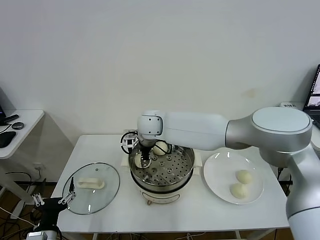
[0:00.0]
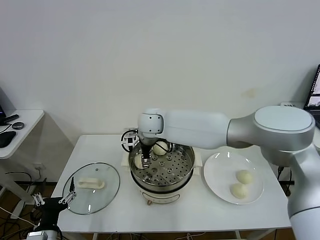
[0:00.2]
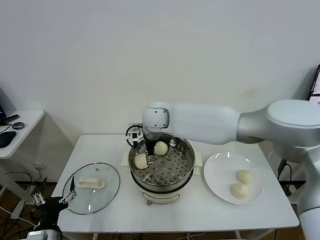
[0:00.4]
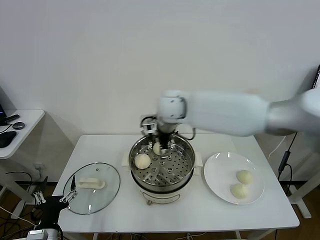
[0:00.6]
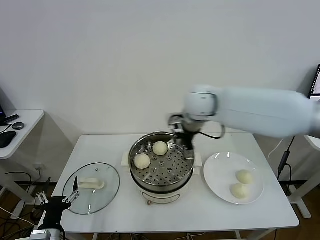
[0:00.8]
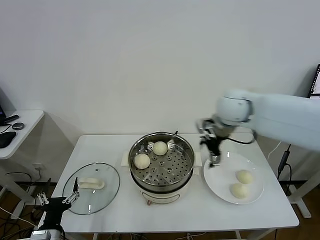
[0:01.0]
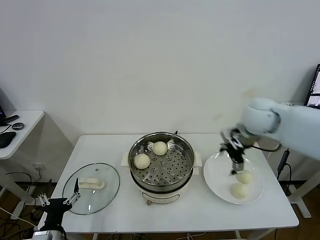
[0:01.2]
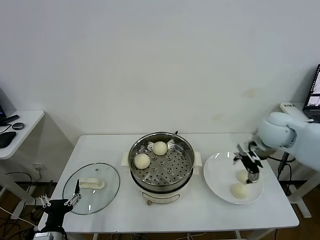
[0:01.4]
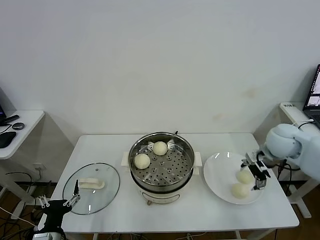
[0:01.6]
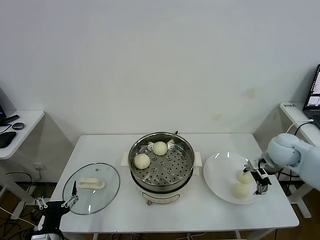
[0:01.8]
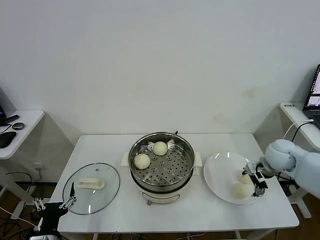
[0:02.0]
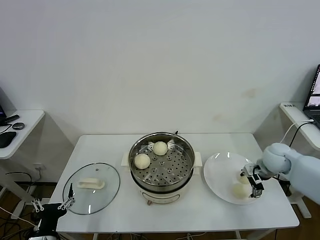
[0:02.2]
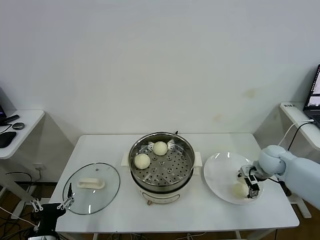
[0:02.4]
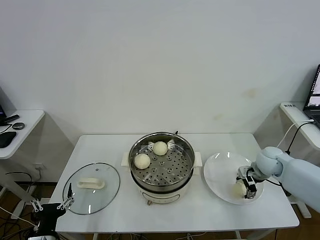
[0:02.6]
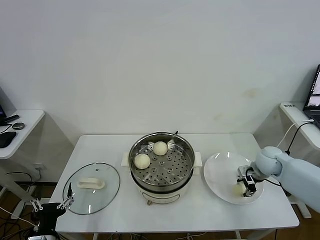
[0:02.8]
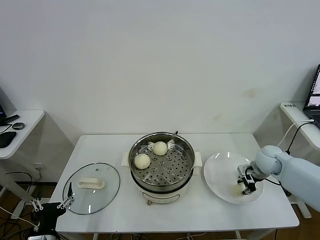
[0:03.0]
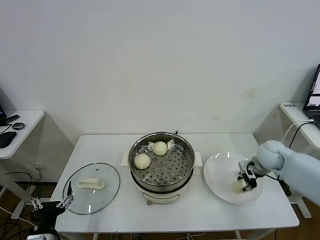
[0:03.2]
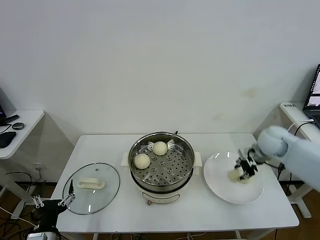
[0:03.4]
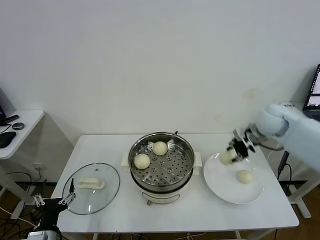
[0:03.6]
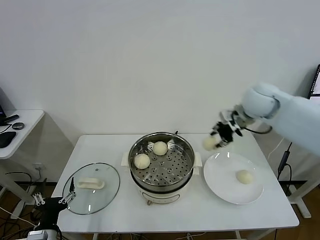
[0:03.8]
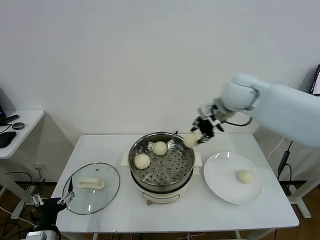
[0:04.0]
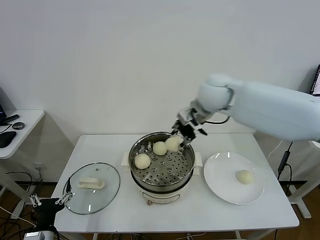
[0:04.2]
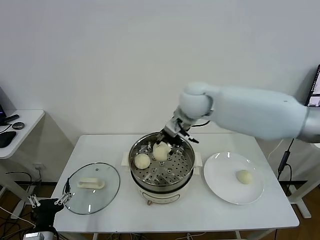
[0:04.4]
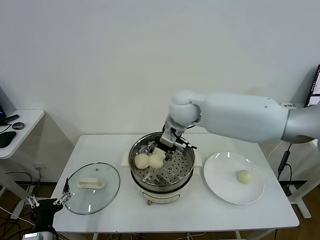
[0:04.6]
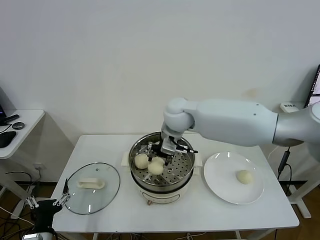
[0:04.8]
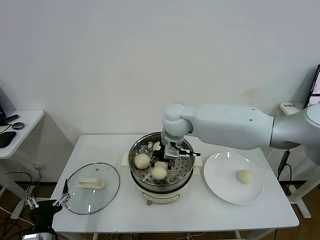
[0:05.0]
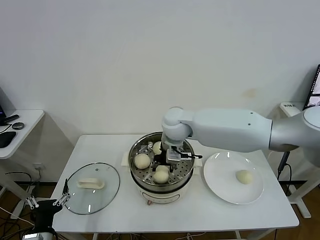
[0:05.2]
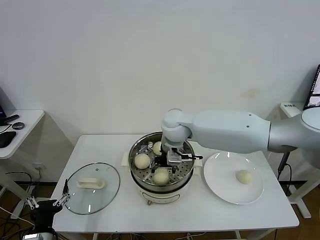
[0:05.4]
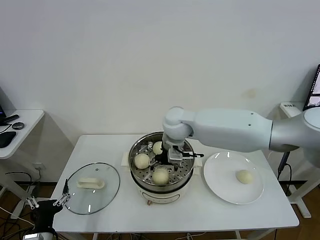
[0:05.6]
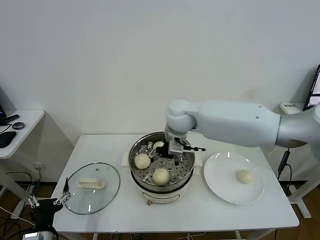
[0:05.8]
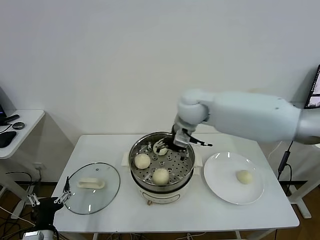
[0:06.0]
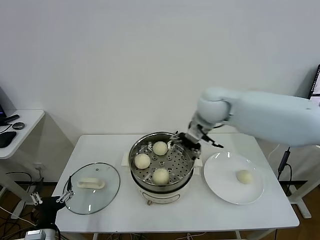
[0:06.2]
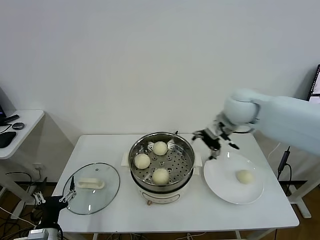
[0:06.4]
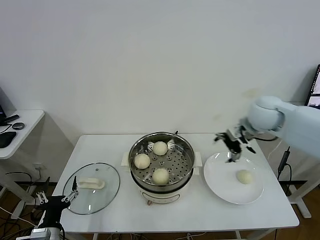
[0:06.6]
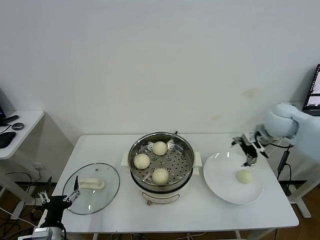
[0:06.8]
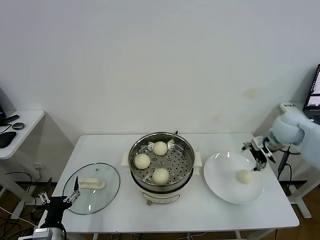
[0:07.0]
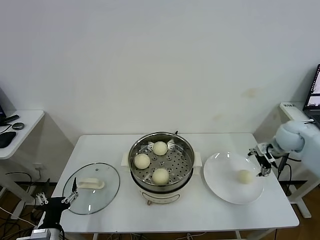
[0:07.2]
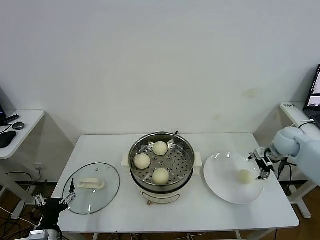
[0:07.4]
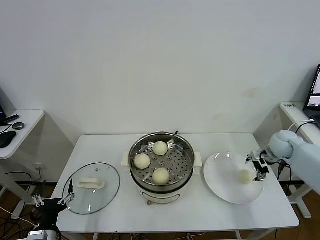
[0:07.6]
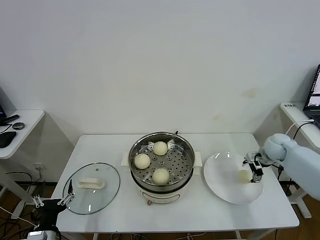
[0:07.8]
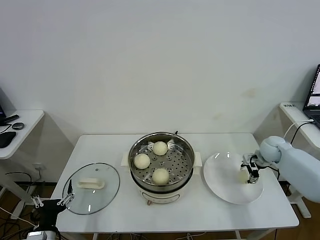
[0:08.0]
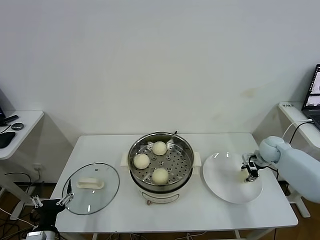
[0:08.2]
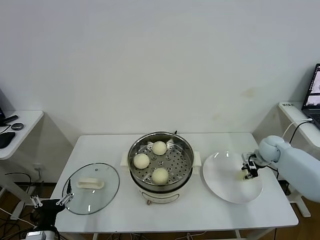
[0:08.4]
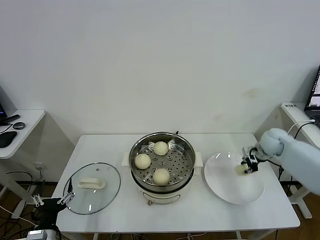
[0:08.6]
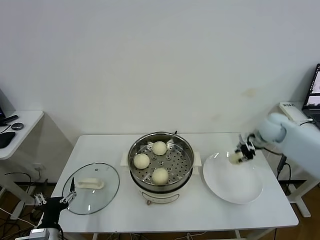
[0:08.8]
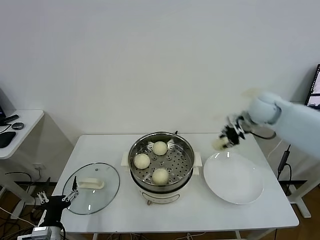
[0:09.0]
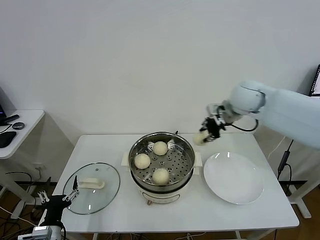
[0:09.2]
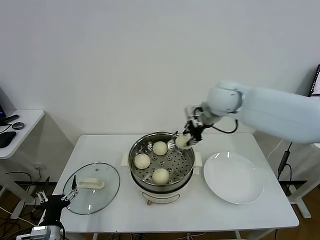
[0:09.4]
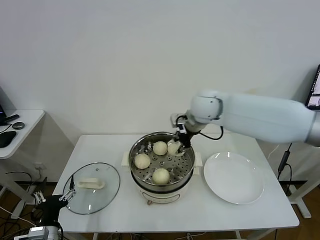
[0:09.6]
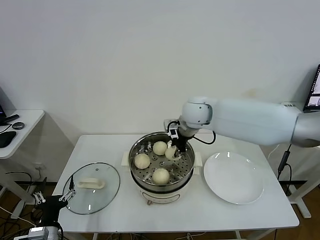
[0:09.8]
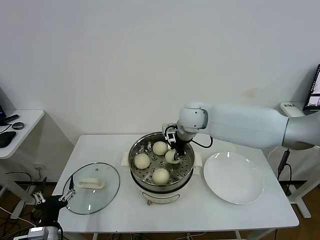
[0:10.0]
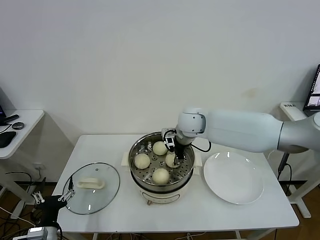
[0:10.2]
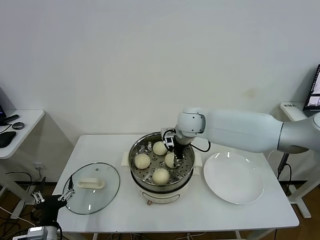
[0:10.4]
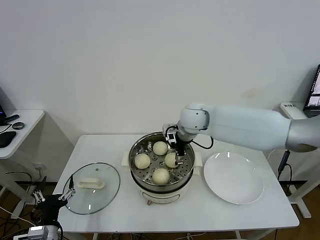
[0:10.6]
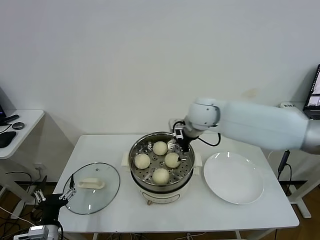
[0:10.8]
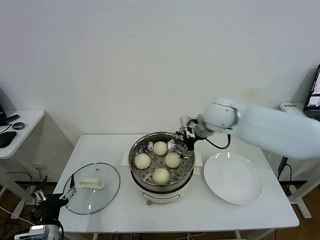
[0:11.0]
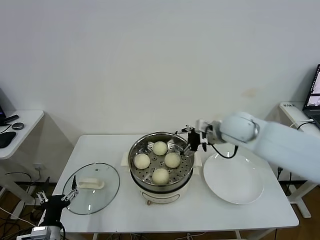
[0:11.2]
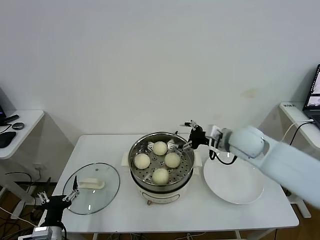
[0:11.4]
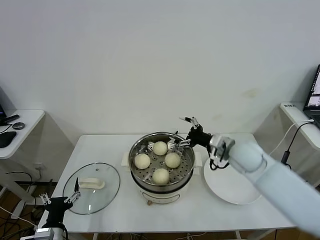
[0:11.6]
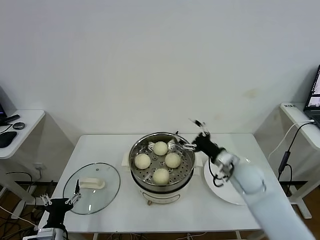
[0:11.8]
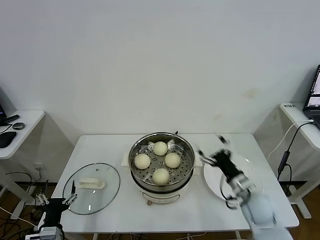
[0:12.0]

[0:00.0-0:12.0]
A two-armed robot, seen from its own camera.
Task of the whole recording: take steamed baozi put them in steamer.
Step, 0:00.6 to 0:03.0: Grasp the baozi in the plate with right gripper.
Step, 0:03.2 to 0:05.6: Place the baozi on the steamer with right gripper.
Step, 0:06.0 to 0:08.2: Grasp the baozi in the plate with right gripper.
Step, 0:08.4 to 0:10.6: Place the baozi on the steamer with right gripper.
0:00.0 to 0:01.6: The right gripper travels to the right by approximately 40 cm, and opens.
0:01.6 to 0:03.0: The right gripper shifts approximately 10 cm downward, and closes up.
0:03.0 to 0:04.4: The right gripper is displaced to the left and upward by about 35 cm.
0:04.4 to 0:06.0: The right gripper reaches approximately 10 cm downward, then returns, and opens up.
0:06.0 to 0:07.6: The right gripper heads to the right and downward, covering about 40 cm.
0:07.6 to 0:09.0: The right gripper goes roughly 20 cm upward and to the left, and closes up.
0:09.0 to 0:10.4: The right gripper shifts approximately 25 cm to the left, and opens.
0:10.4 to 0:12.0: The right gripper goes approximately 30 cm to the right, backward and downward, and opens its fingers.

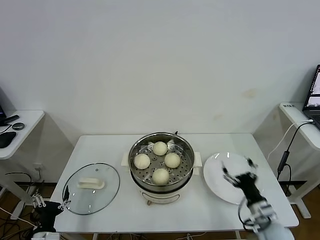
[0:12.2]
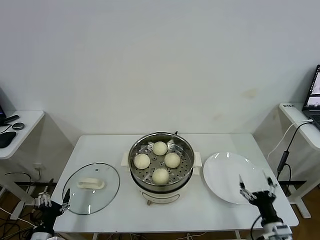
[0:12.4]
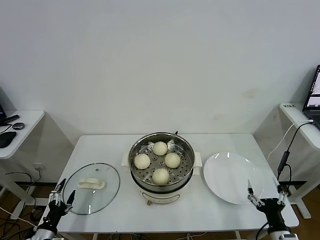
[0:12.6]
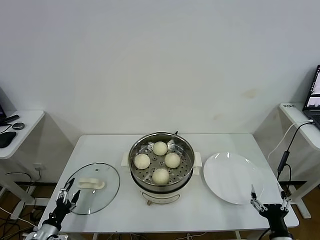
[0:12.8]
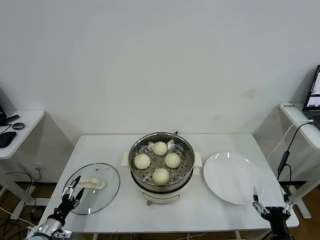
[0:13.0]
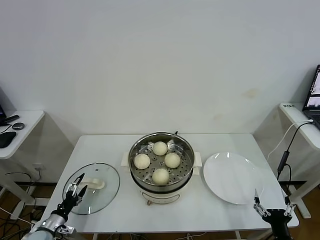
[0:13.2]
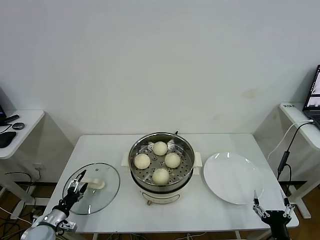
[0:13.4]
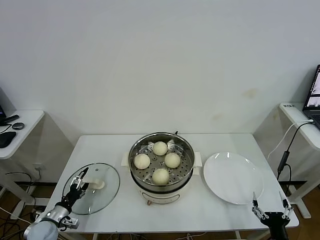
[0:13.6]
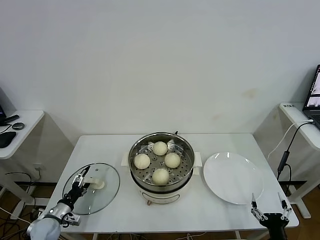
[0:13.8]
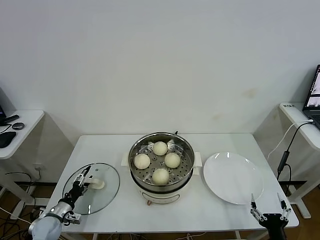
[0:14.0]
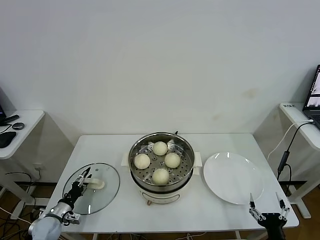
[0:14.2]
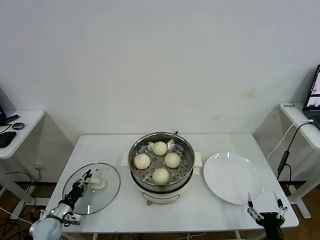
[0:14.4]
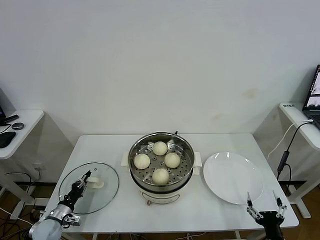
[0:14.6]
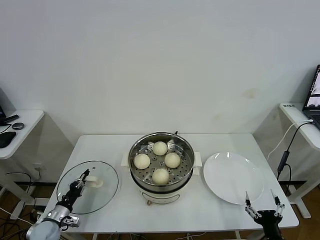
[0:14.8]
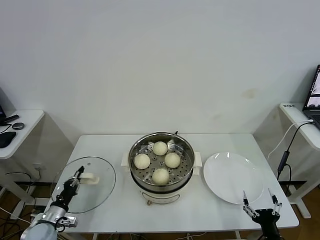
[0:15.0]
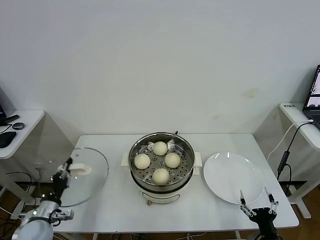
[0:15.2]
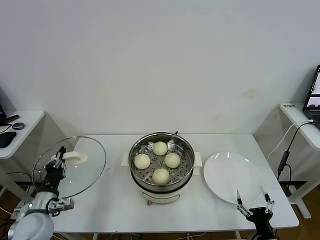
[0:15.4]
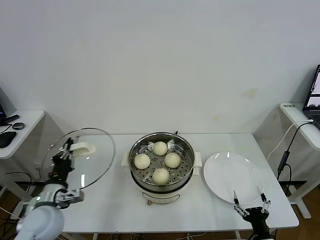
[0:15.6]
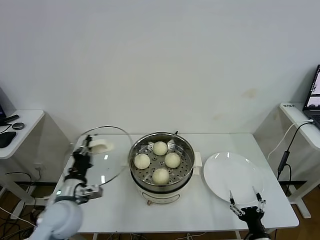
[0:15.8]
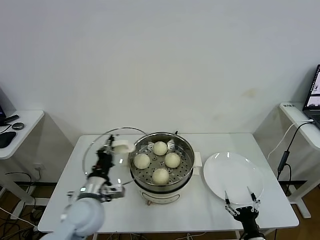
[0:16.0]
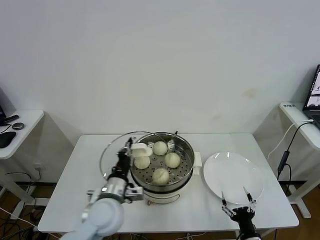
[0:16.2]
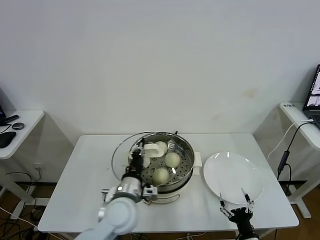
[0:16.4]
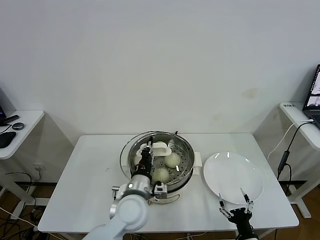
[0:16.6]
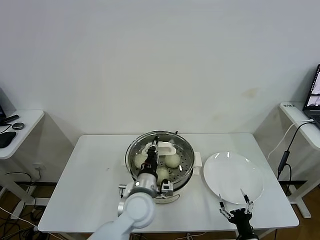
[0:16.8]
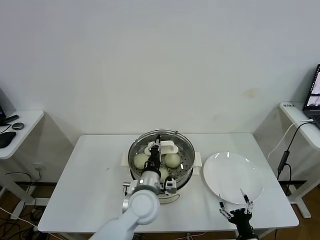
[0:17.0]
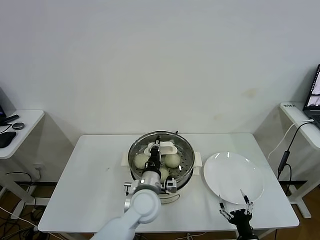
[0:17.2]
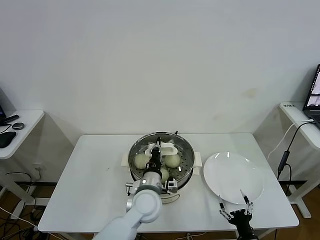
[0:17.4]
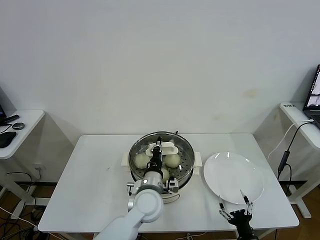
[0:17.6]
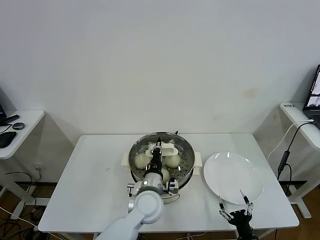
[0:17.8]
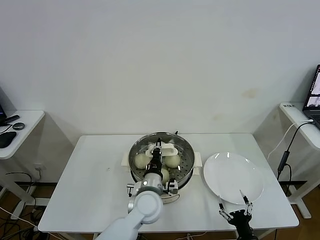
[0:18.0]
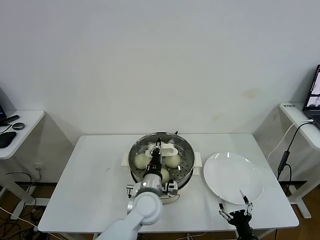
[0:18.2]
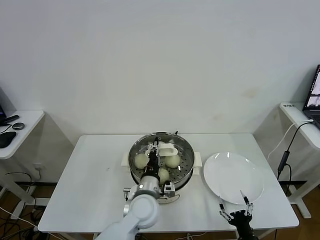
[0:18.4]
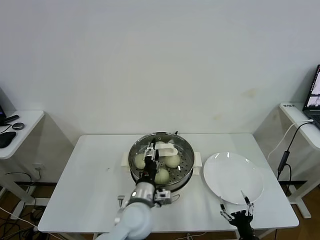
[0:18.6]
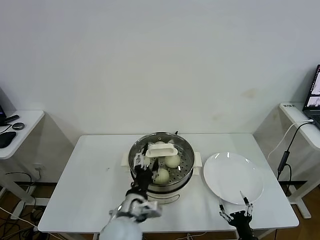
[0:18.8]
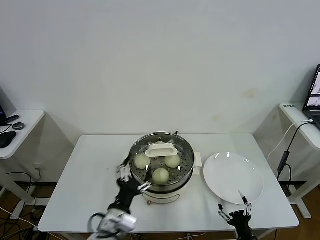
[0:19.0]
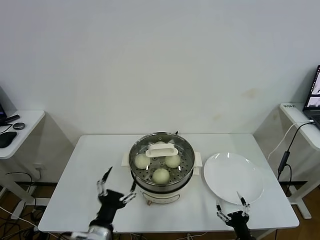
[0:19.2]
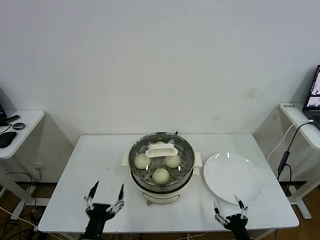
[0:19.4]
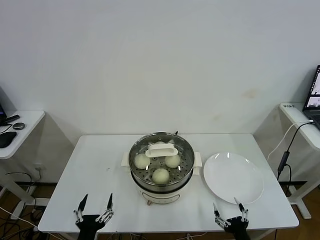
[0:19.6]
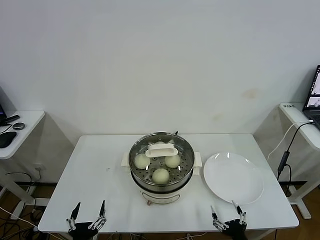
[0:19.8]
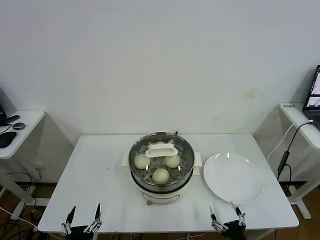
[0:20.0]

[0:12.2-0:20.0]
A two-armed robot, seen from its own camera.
Task of the whole recording: take steamed baozi put them in steamer.
Step, 0:12.2 to 0:14.8: Grasp the pot lid with left gripper.
Step, 0:15.0 to 0:18.8: Place the pot lid on the steamer with left gripper.
0:12.2 to 0:13.8: The right gripper is displaced backward by approximately 15 cm. Meanwhile the left gripper is displaced forward, to the left and downward by about 15 cm.
0:13.8 to 0:15.4: The left gripper is displaced upward by some 15 cm, and closes.
0:15.4 to 0:16.8: The left gripper shifts some 30 cm to the right, while the right gripper moves some 5 cm.
0:16.8 to 0:18.4: There are only small adjustments of the grippers.
0:18.4 to 0:20.0: The left gripper moves backward and to the left, some 30 cm, and opens, while the right gripper changes place by roughly 5 cm.
